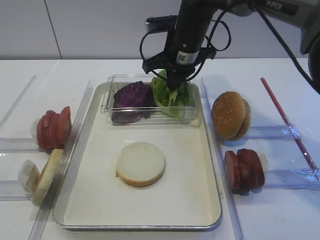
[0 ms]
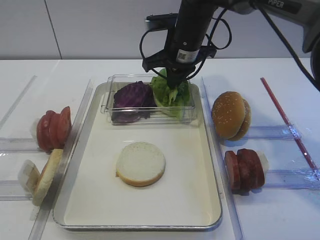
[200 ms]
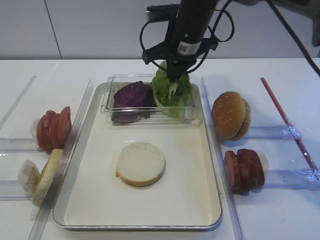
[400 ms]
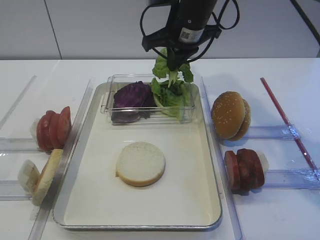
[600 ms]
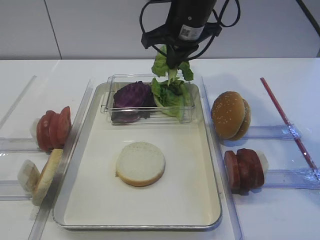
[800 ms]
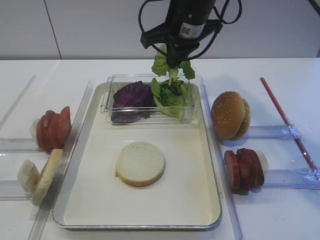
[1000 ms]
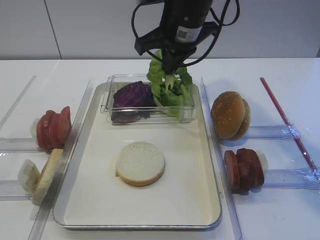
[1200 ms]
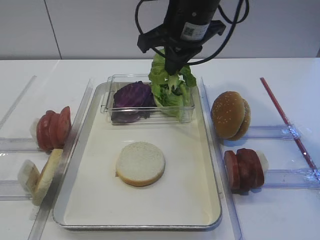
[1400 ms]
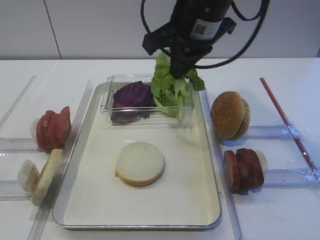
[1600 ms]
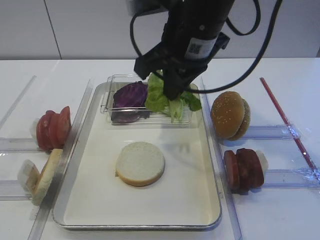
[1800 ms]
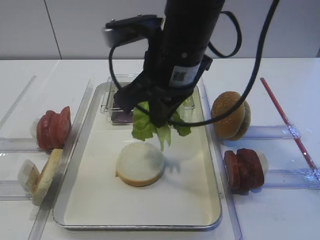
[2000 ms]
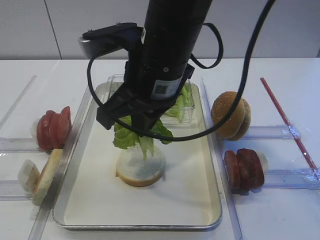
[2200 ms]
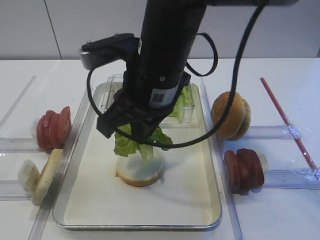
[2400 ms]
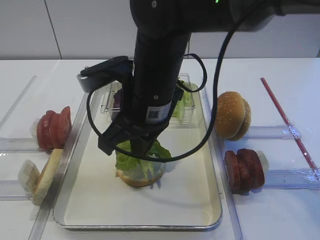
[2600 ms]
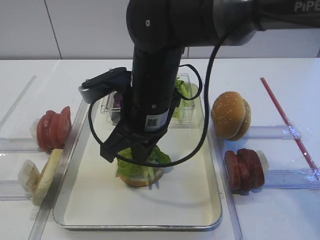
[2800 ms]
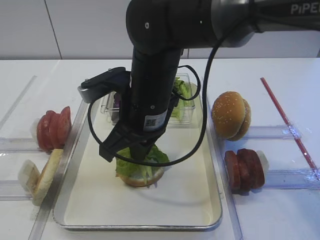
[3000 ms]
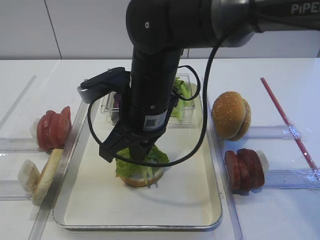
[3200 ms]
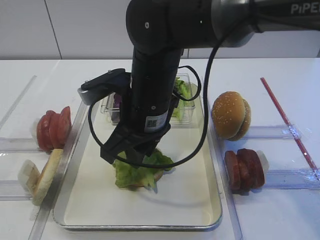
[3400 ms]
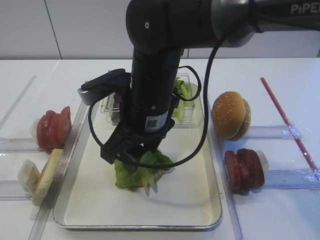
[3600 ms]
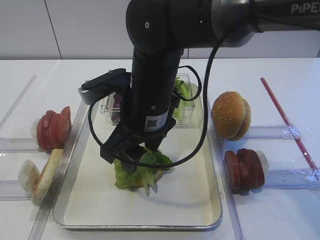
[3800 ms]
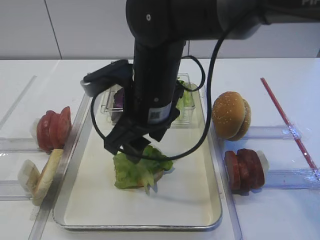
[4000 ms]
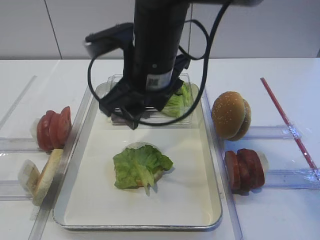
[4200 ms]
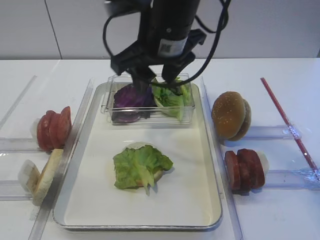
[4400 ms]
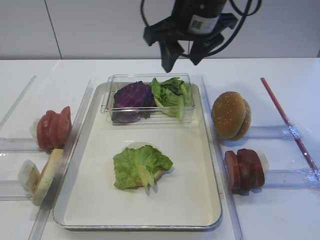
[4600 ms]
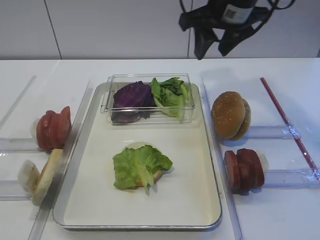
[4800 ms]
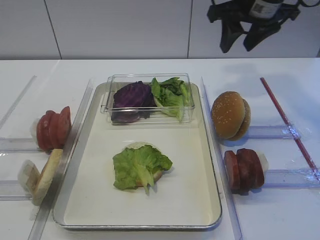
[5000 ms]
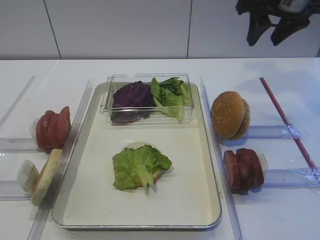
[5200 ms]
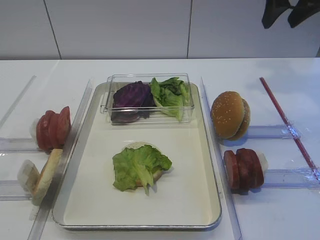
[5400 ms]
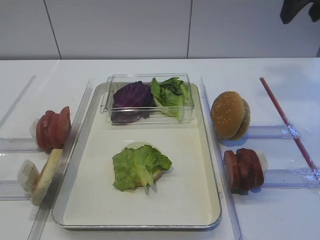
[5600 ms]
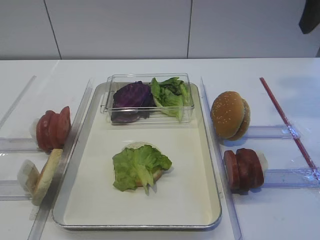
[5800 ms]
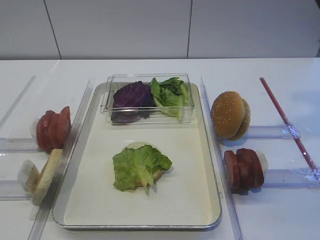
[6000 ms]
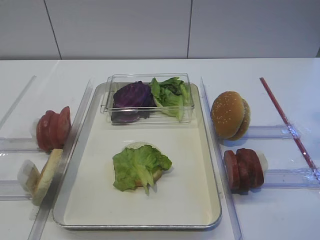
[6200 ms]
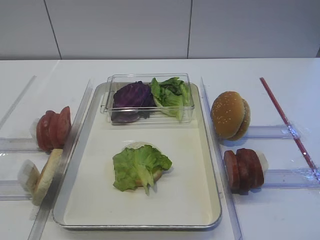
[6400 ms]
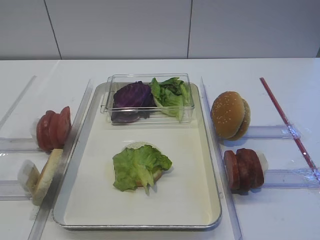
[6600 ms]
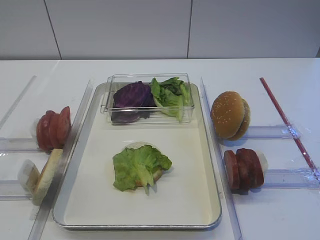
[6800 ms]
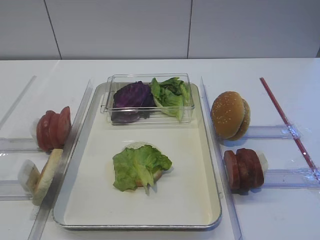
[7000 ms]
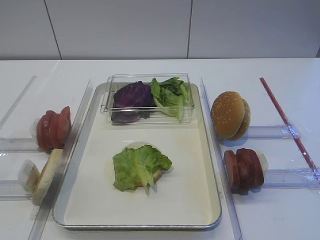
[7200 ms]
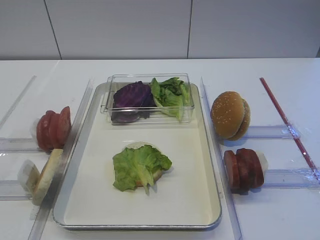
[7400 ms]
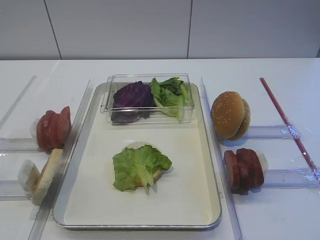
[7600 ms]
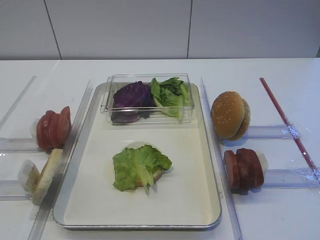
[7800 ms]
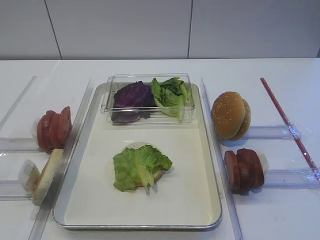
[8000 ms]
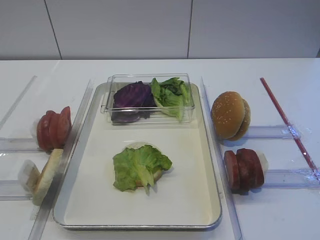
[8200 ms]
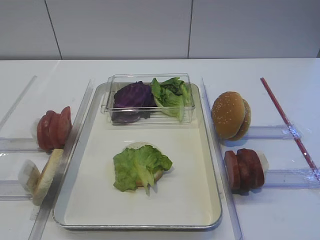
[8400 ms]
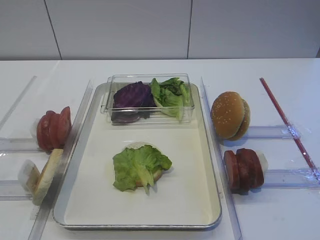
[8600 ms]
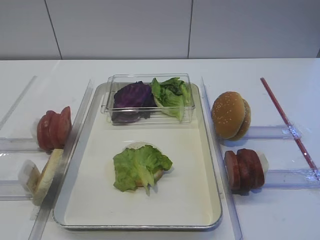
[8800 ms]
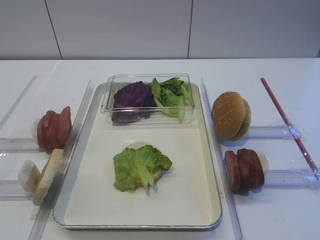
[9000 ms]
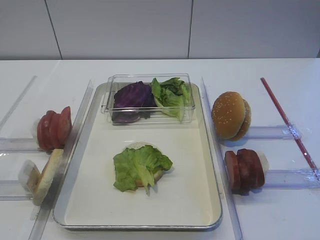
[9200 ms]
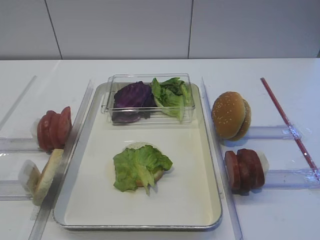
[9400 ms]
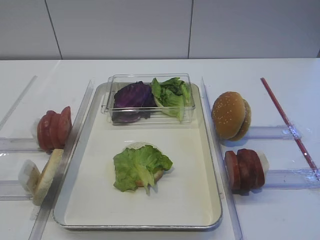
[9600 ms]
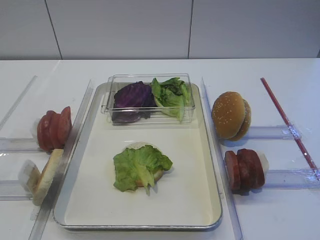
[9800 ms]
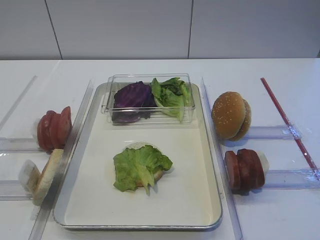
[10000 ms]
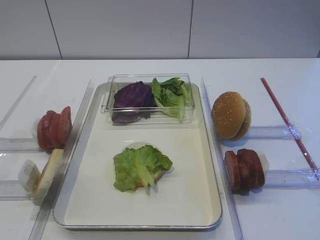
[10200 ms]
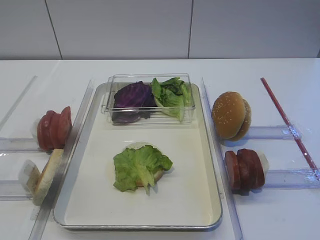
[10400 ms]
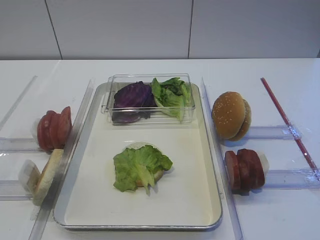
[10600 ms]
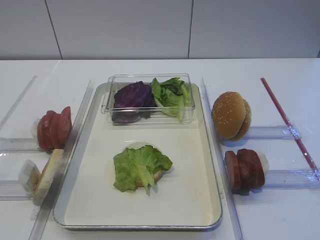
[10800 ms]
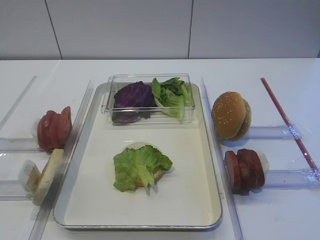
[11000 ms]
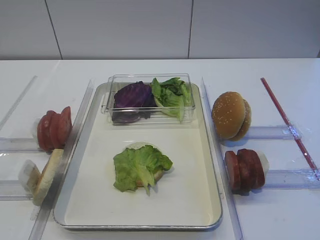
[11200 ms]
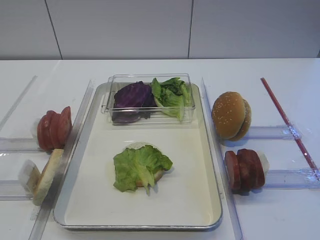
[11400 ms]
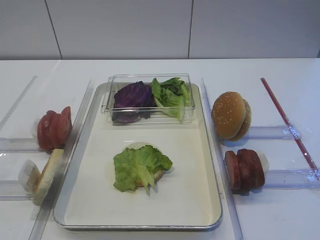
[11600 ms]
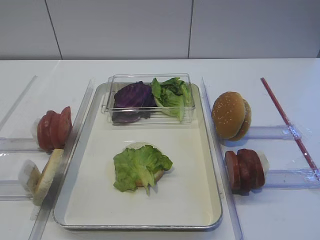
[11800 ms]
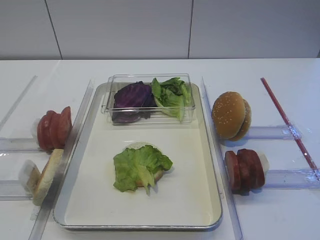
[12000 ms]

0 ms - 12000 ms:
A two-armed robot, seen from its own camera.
Step, 1000 ms - 3800 ms: Place the lettuce leaf on the bread slice with the right gripper.
0 ms - 1600 ms: The right gripper goes approximately 15 cm backward and upward.
1600 ms - 3000 ms: The right gripper goes roughly 15 cm downward, to the left and backward.
3000 ms - 4400 ms: The right gripper heads upward, covering about 10 cm, and opens up.
4400 ms - 6000 ms: The right gripper travels to the right by about 25 cm.
9000 ms - 12000 ms: The two grippers keep their place.

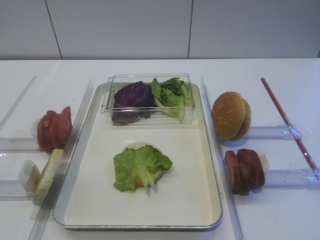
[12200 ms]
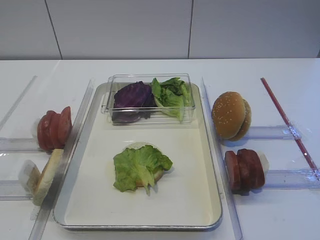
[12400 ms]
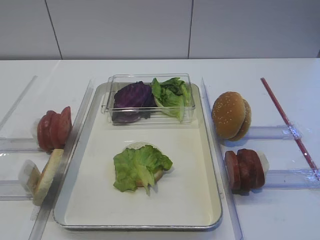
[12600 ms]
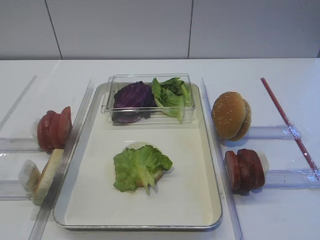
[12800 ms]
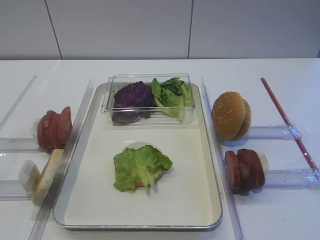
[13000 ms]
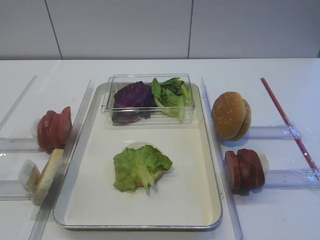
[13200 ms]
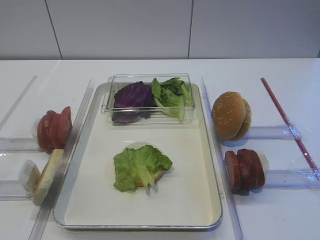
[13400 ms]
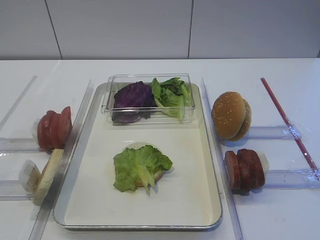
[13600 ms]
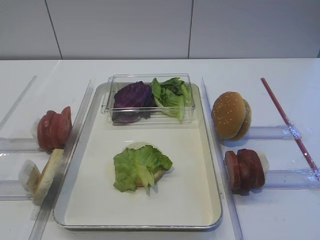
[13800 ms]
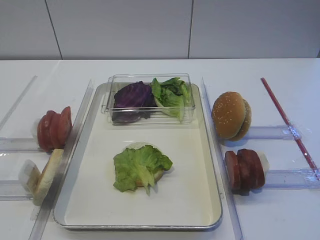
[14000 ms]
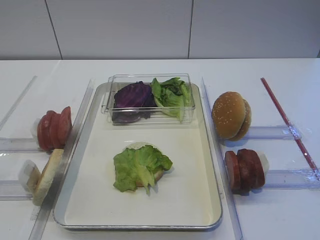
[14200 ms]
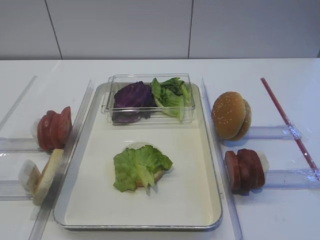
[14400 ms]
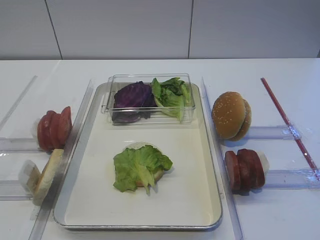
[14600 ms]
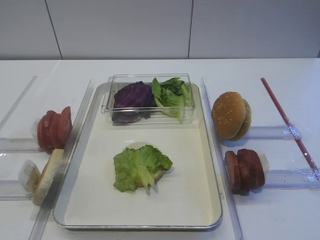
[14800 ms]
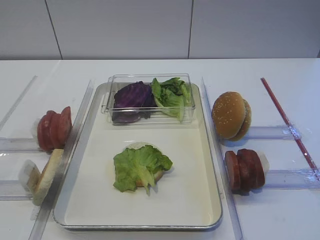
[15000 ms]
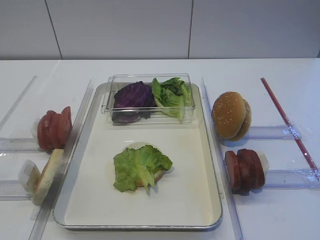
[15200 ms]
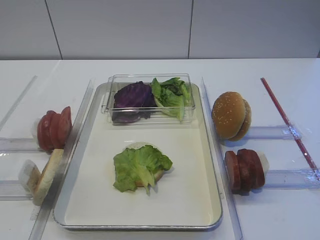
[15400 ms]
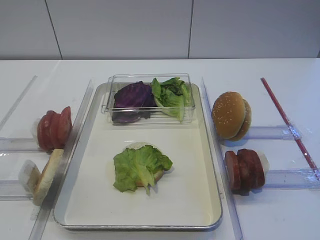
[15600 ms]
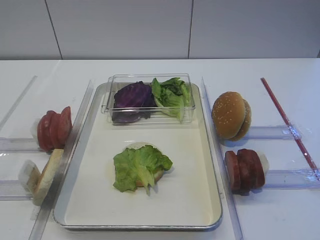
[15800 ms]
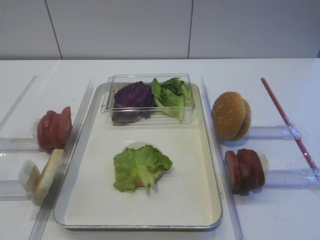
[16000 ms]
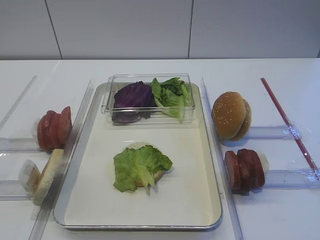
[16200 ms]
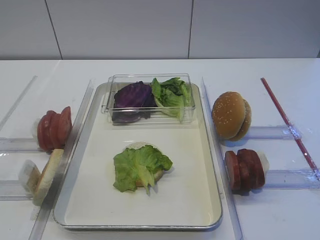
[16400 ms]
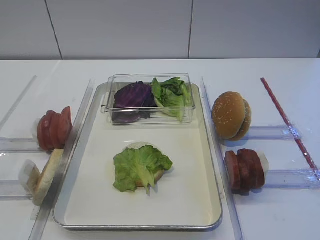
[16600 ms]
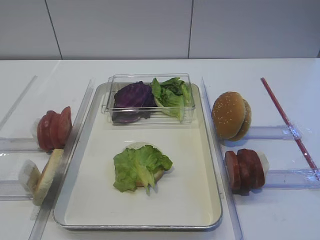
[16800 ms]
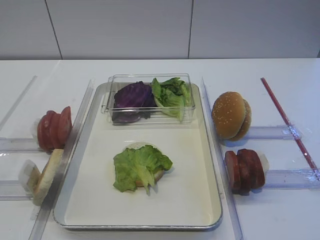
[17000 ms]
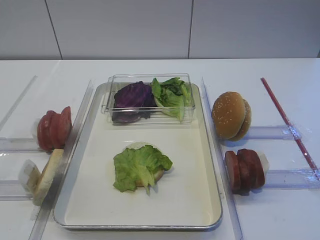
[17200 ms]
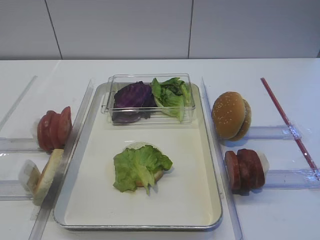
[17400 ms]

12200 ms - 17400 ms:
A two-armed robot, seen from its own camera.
12200 ms - 17400 ms: Both grippers stay put.

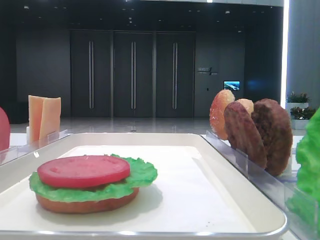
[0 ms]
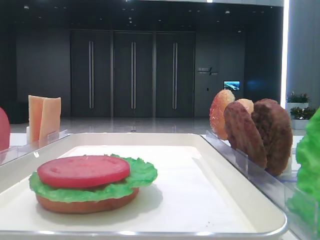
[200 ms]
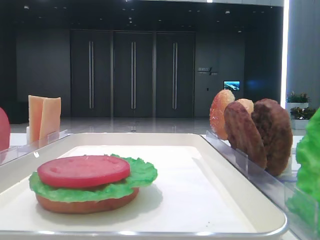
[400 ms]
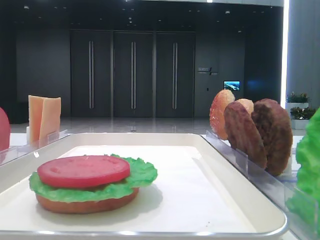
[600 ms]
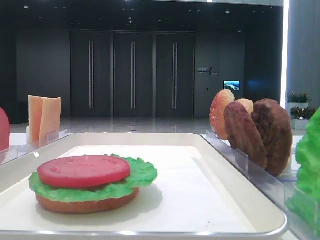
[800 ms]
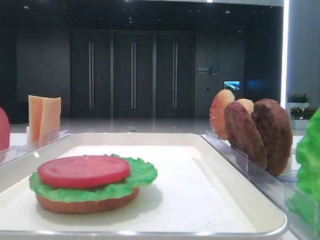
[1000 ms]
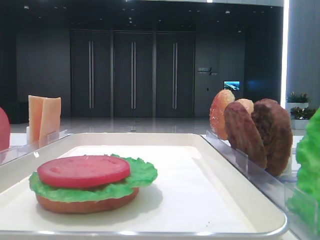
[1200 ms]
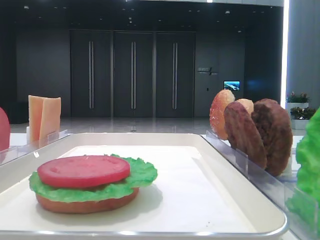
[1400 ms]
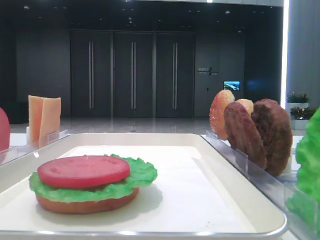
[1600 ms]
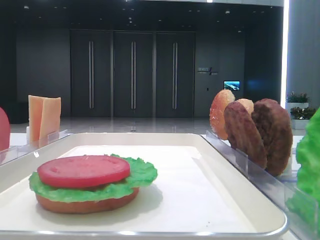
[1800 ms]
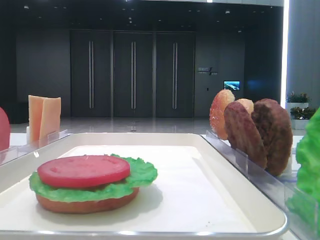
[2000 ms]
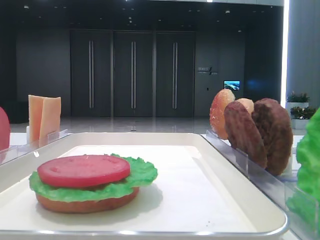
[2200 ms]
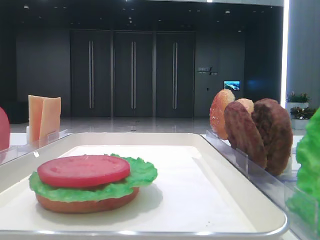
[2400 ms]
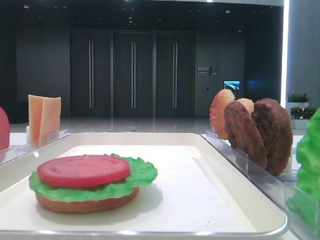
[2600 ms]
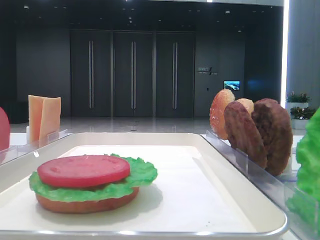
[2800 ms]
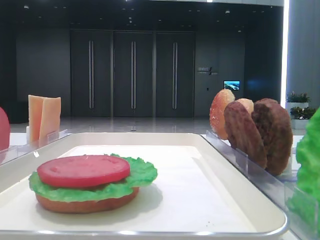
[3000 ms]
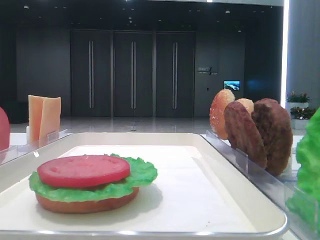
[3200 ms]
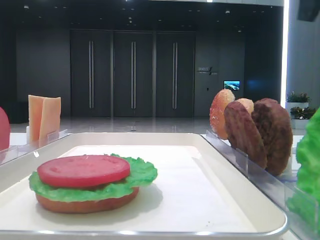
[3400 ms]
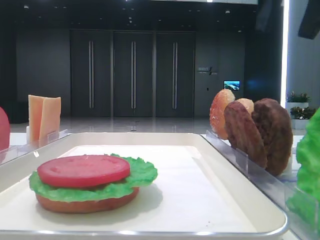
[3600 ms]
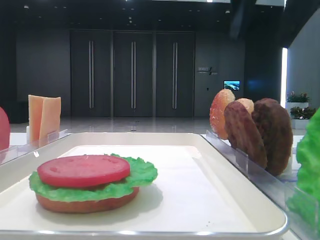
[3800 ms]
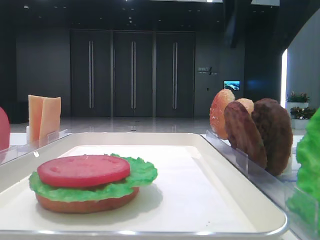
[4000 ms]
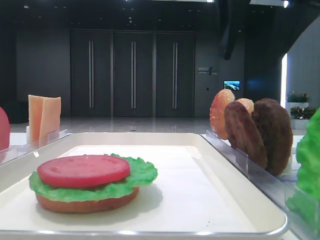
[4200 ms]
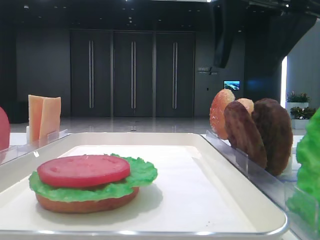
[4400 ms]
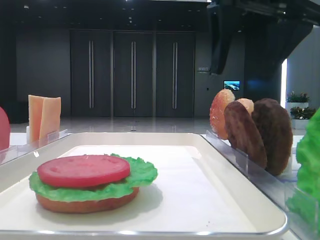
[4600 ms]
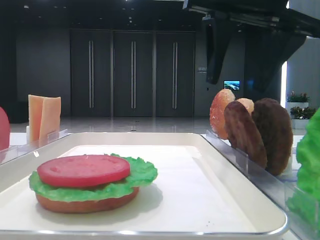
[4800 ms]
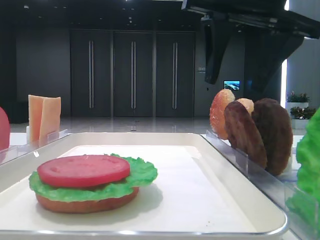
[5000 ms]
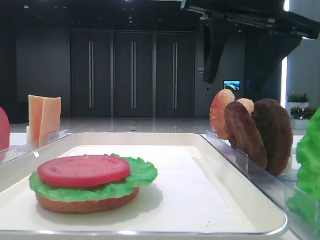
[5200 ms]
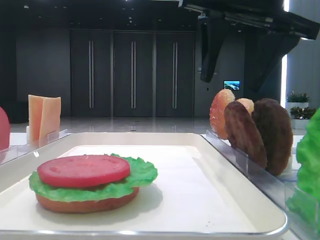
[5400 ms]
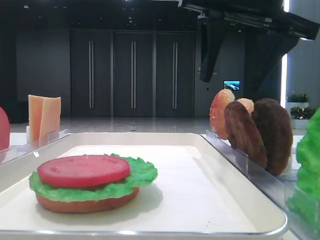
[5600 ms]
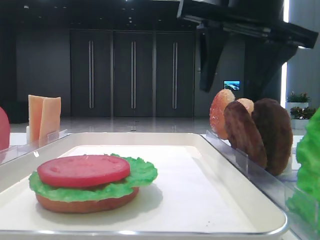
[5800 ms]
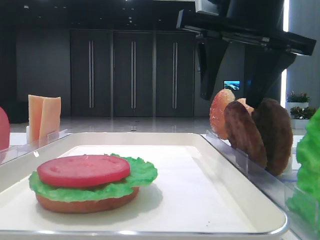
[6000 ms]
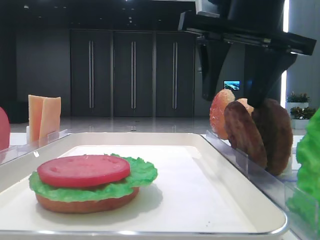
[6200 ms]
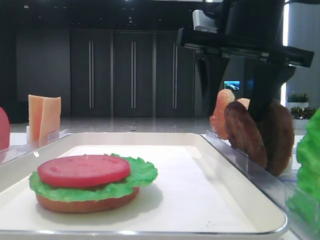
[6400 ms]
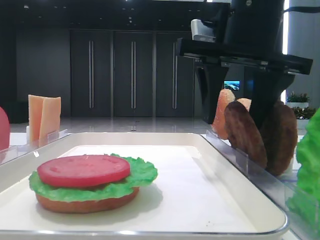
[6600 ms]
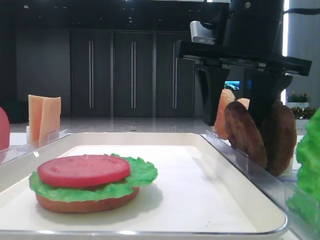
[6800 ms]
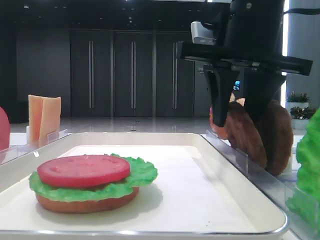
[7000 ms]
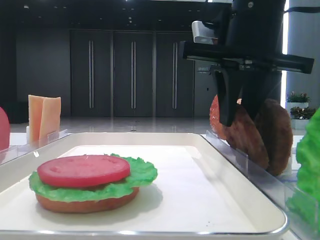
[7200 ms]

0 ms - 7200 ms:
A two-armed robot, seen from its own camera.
2800 ms - 4400 ms: The right gripper heads to the left, covering some 15 cm, and opens up.
4400 ms - 5800 ms: The grippers stay close to where they were, moving slightly.
5800 ms - 7200 ms: The right gripper closes.
